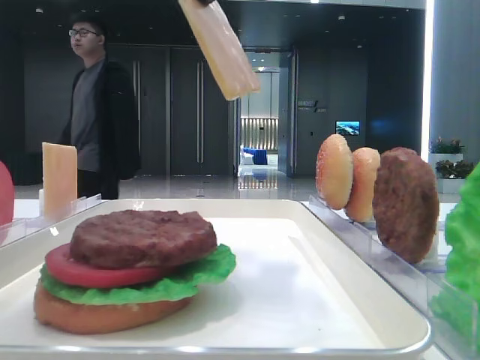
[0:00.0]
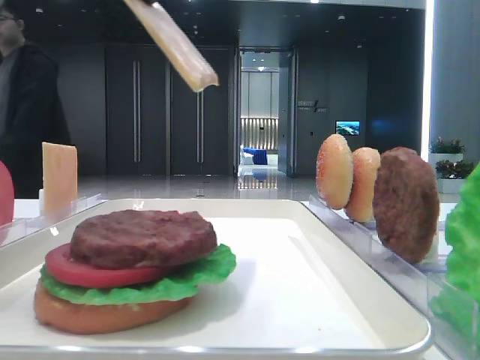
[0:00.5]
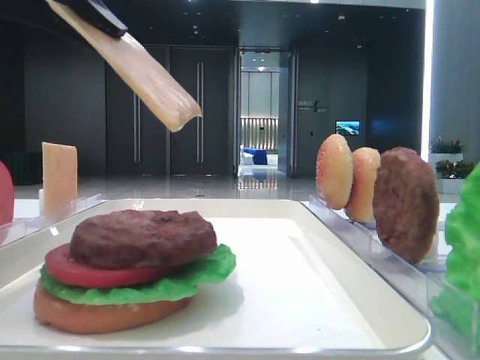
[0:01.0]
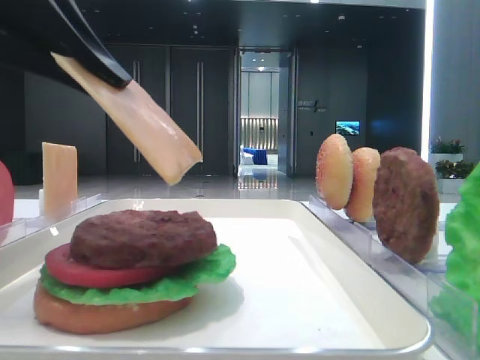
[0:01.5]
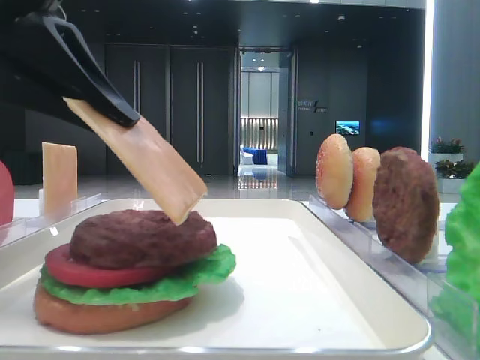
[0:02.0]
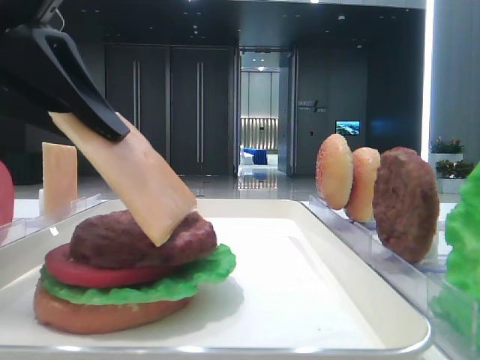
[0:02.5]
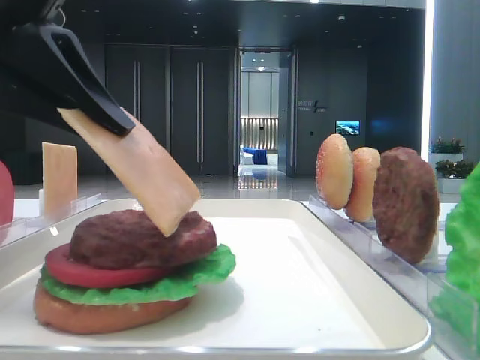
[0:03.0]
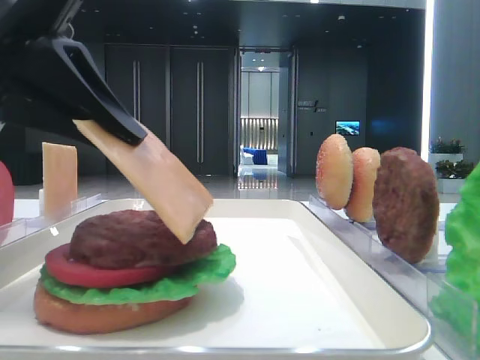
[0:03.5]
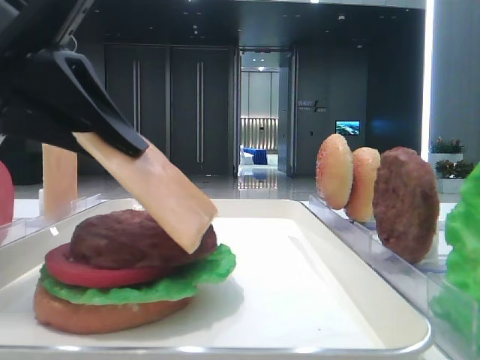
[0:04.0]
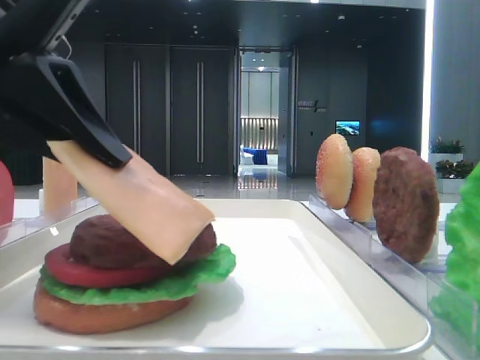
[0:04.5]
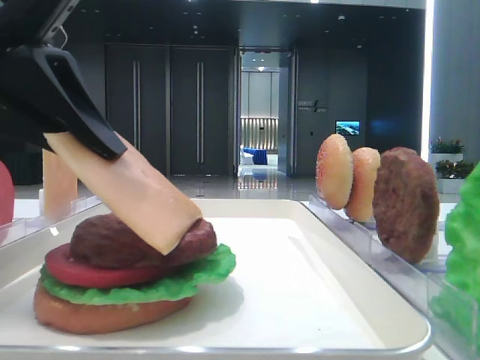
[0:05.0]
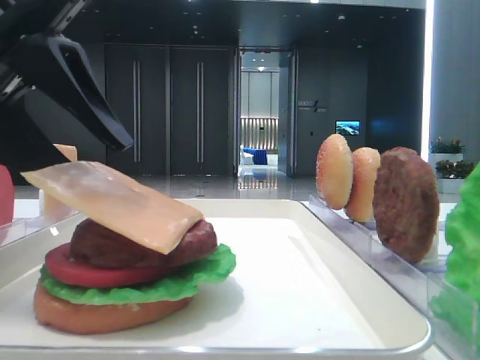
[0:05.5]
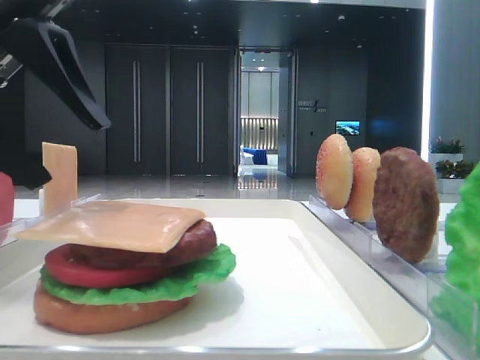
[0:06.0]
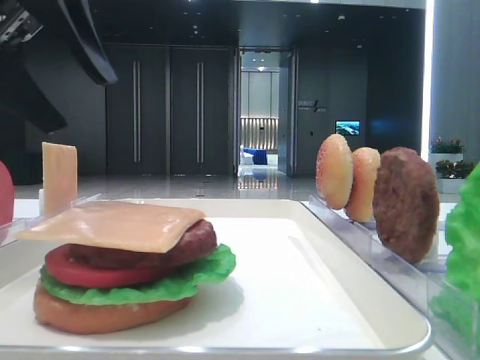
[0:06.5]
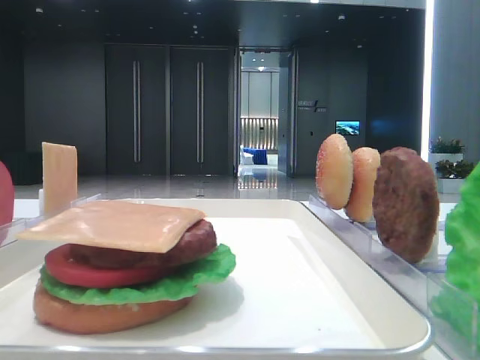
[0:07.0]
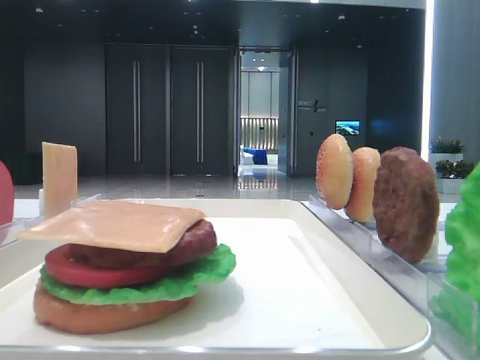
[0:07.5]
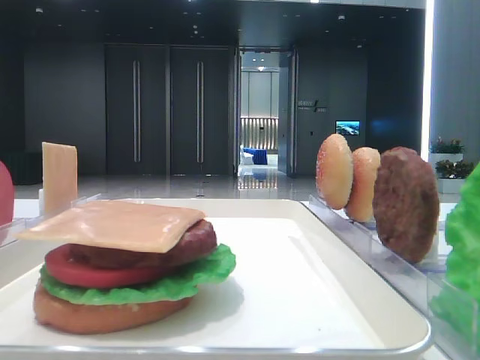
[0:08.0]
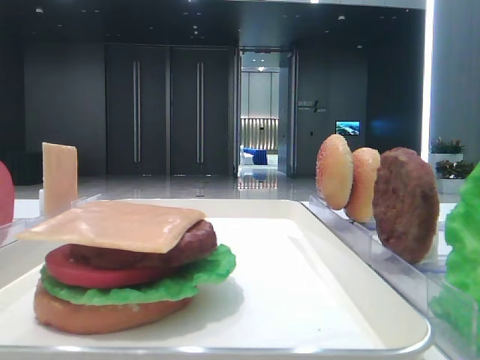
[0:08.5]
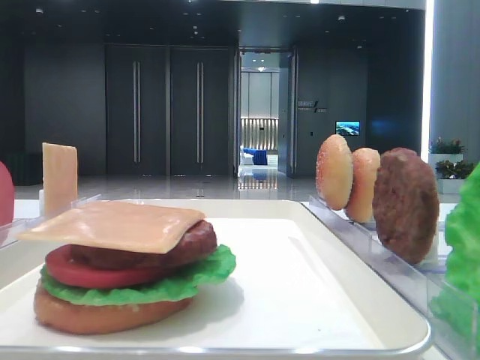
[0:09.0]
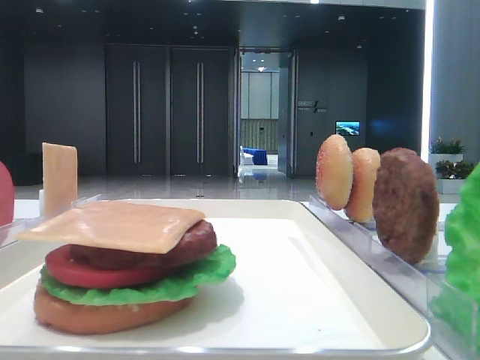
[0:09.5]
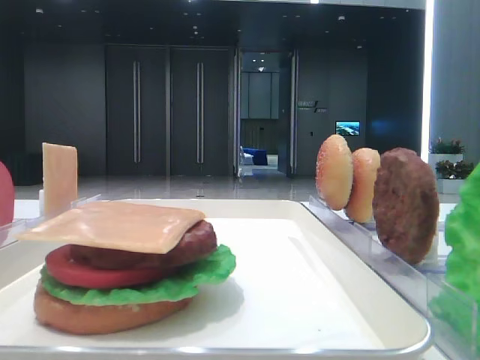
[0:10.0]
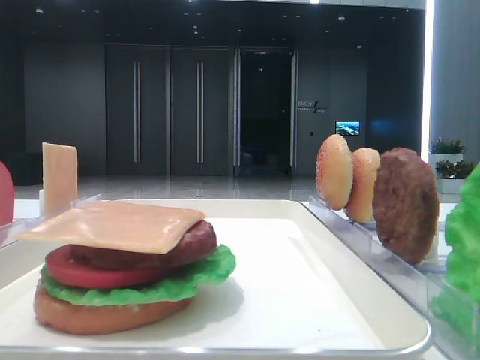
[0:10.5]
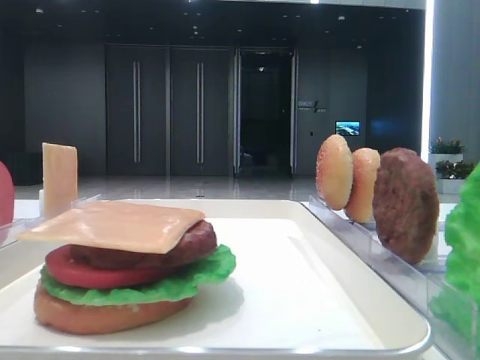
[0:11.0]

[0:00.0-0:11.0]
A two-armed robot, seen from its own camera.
Step, 0:00.0 to 0:05.5: Place the cheese slice on the patty with the left hand.
0:00.0 to 0:02.0: The left gripper heads downward and to the left, covering some 15 cm.
0:02.0 to 0:03.5: Both grippers stay put.
0:03.5 to 0:05.5: The left gripper opens up.
0:05.5 to 0:07.5: The left gripper travels to the left, upward and forward by about 20 cm.
0:09.0 to 0:11.0: The left gripper moves downward, roughly 5 cm.
